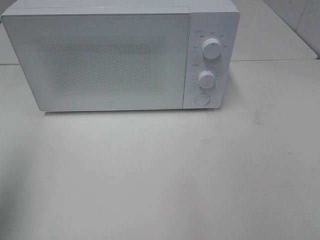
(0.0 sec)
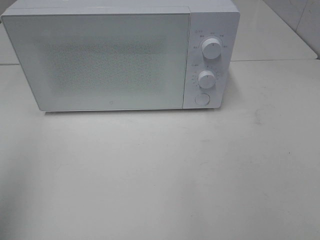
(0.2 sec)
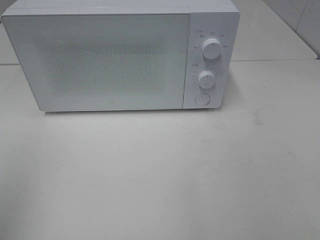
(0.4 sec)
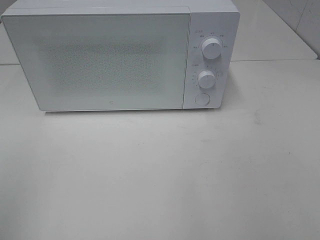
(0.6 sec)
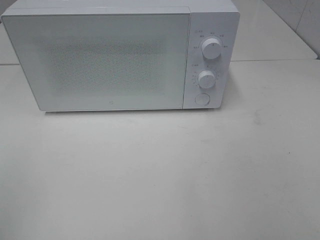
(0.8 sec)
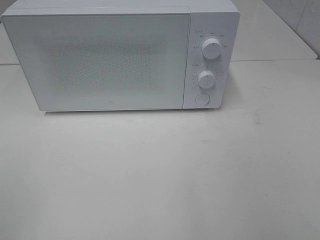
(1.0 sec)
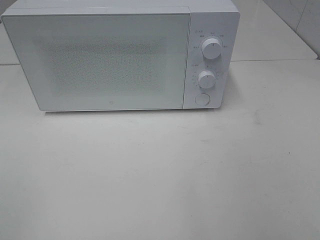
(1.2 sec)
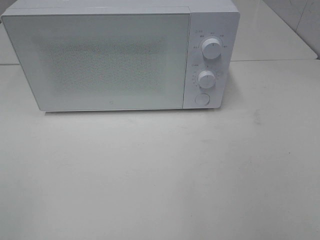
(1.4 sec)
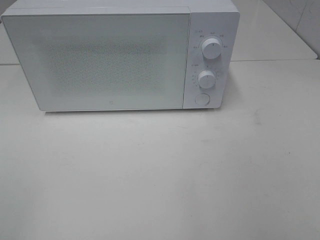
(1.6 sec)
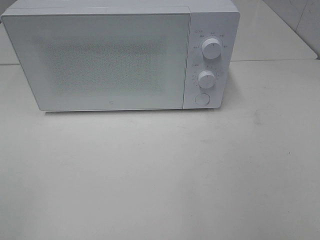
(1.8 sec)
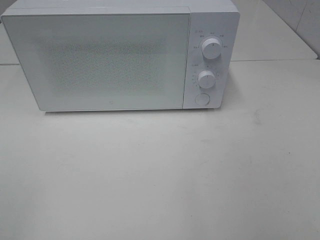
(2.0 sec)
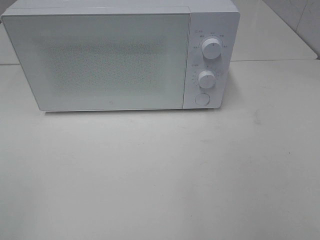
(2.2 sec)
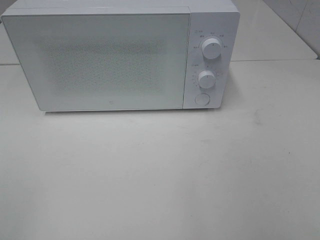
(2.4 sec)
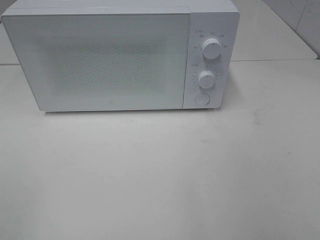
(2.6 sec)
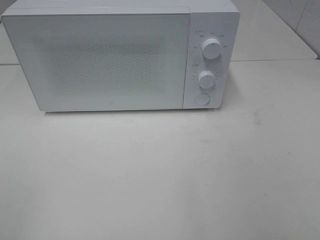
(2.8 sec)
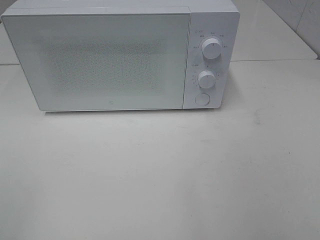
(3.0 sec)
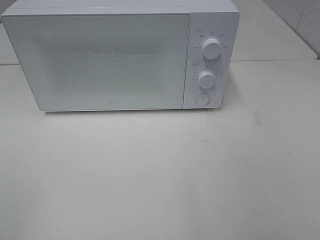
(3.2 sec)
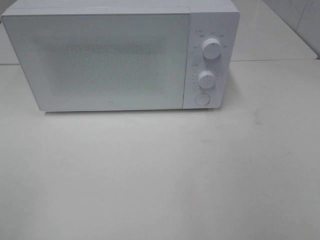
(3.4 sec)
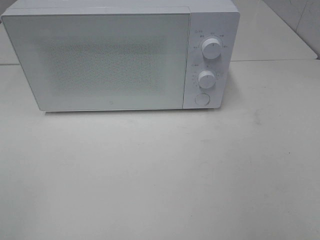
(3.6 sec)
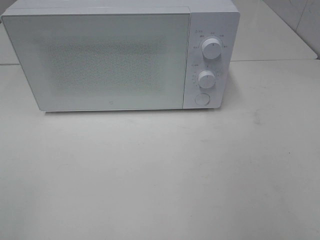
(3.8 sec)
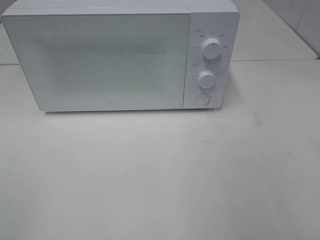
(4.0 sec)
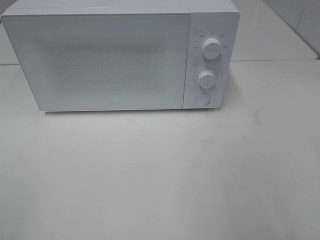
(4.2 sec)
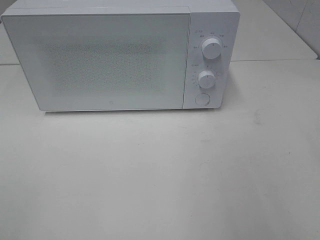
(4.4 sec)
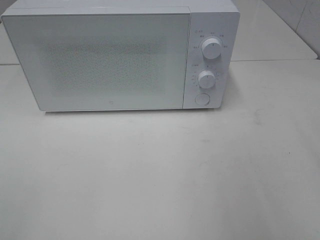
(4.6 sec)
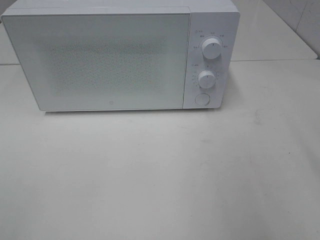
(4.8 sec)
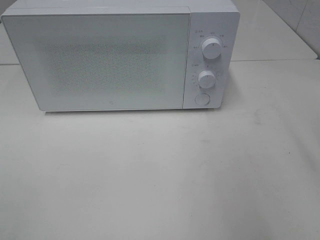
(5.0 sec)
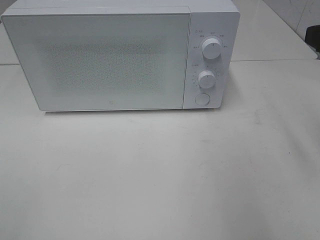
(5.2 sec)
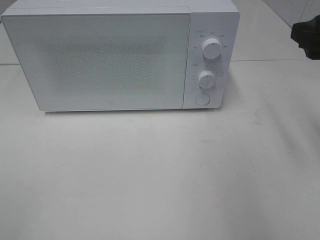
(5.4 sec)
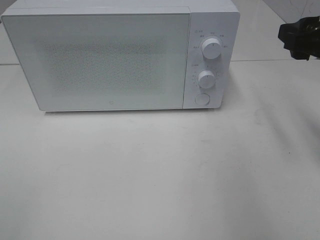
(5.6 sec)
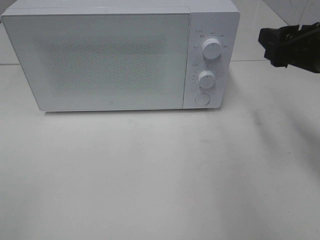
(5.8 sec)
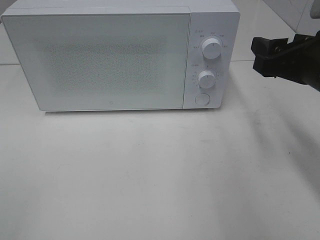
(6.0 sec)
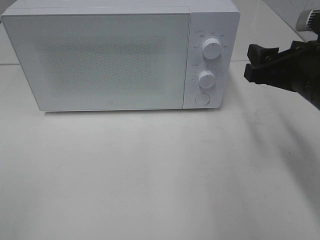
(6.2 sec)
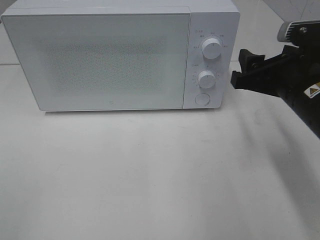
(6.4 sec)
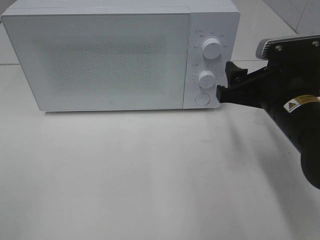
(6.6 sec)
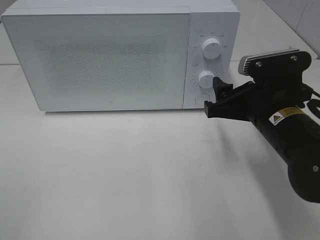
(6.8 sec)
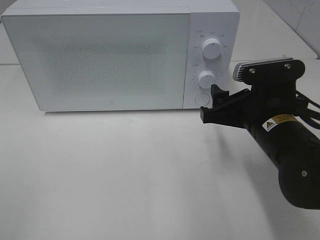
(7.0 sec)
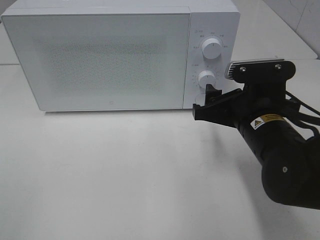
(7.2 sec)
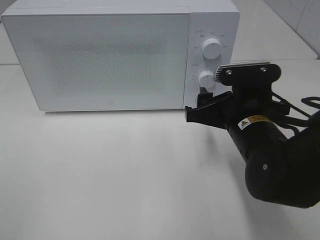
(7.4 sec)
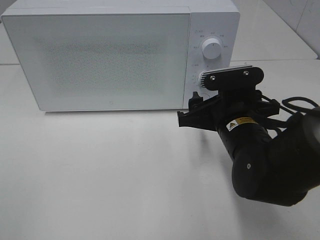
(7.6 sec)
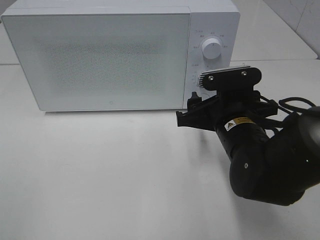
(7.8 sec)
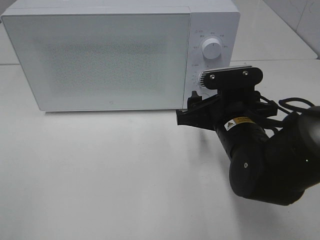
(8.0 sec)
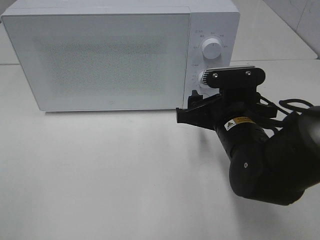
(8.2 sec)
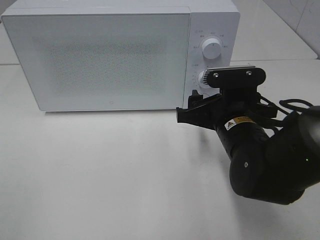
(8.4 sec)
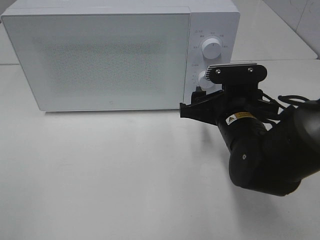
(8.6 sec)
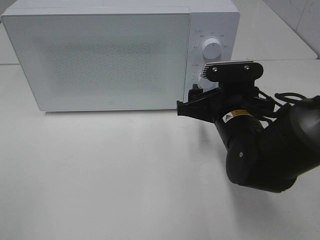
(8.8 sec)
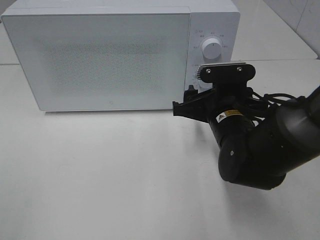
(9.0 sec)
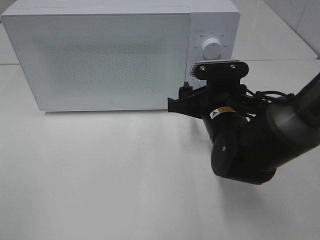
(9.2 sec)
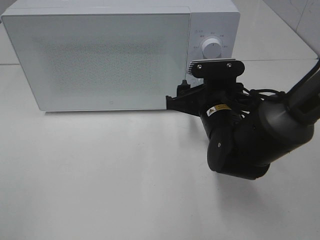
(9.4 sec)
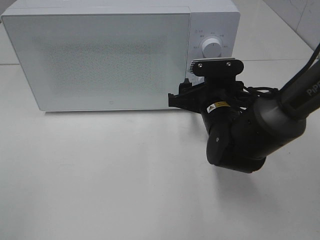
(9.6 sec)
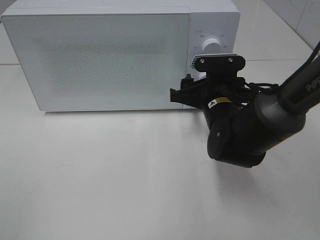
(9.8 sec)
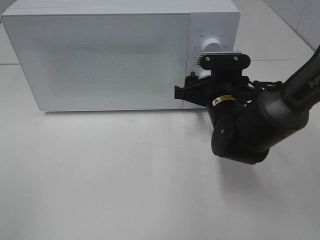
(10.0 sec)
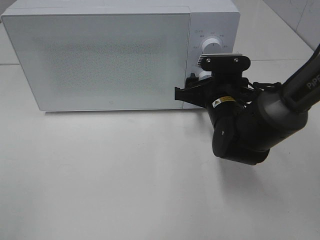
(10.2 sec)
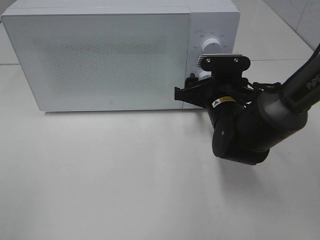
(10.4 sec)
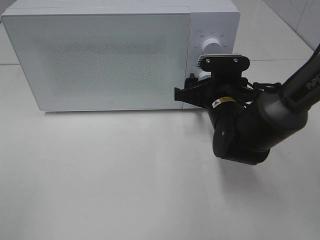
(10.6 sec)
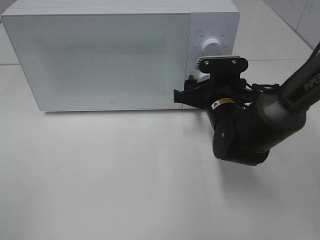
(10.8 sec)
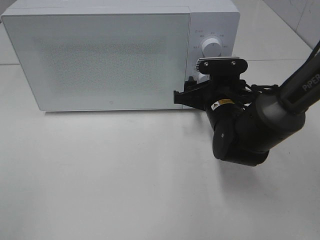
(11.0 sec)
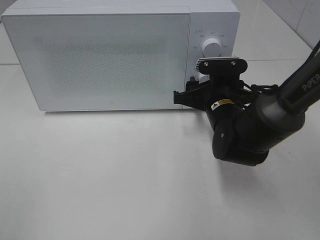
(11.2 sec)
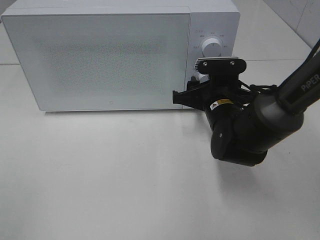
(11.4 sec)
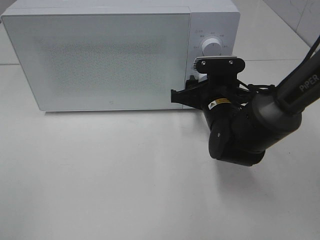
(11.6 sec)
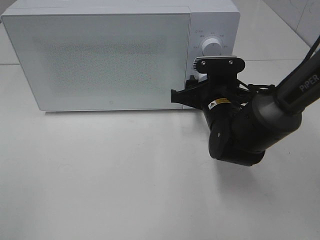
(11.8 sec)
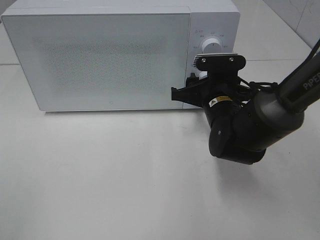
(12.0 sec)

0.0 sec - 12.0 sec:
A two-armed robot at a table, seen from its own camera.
Task of the whole recording: Heat the burger.
0.0 sec - 1.6 sec: The left gripper shifts approximately 15 cm backward and downward.
1.6 sec - 3.0 sec: Both grippers stay put.
4.4 sec - 6.0 sec: The right gripper heads forward and downward, covering approximately 15 cm.
6.0 sec - 7.6 sec: The right gripper travels to the left and downward by roughly 15 cm.
7.6 sec - 9.0 sec: The grippers move only a little.
9.0 sec - 10.4 sec: The grippers move only a little.
10.4 sec - 12.0 sec: Both grippers stay about where they are.

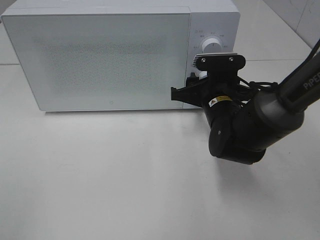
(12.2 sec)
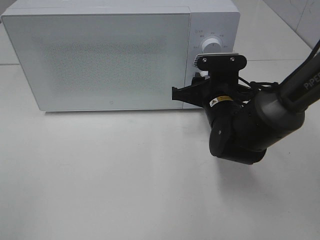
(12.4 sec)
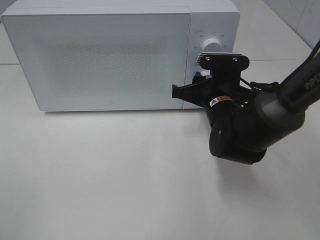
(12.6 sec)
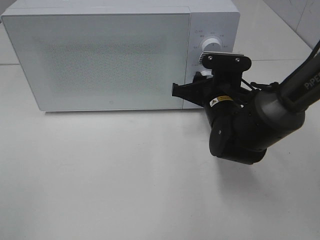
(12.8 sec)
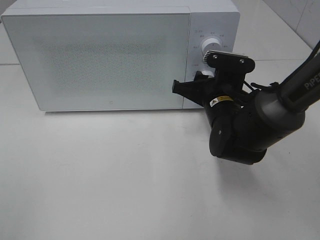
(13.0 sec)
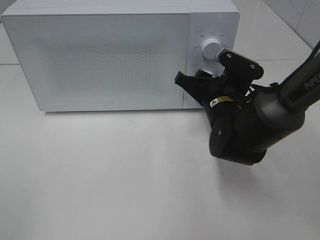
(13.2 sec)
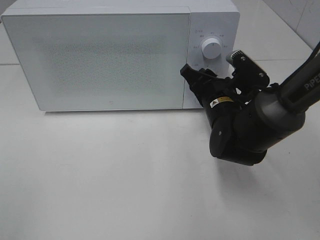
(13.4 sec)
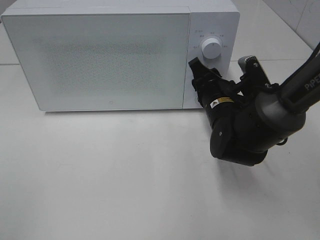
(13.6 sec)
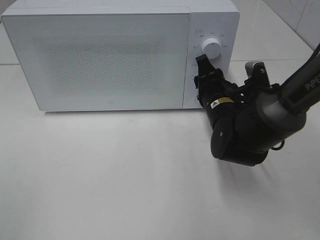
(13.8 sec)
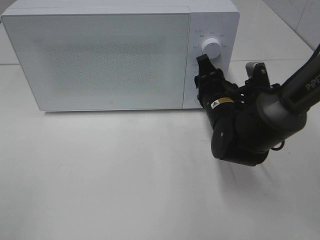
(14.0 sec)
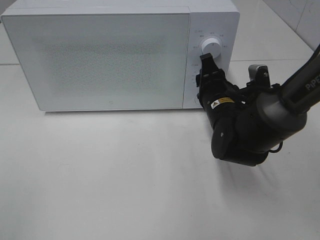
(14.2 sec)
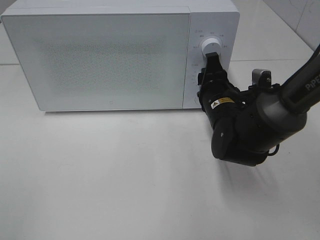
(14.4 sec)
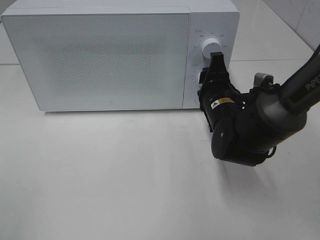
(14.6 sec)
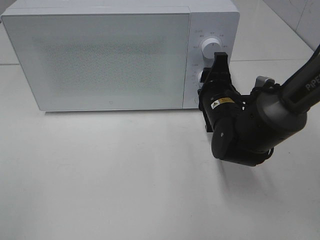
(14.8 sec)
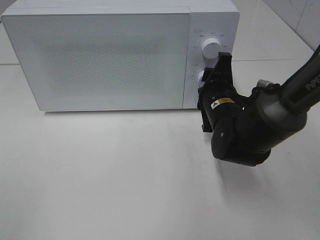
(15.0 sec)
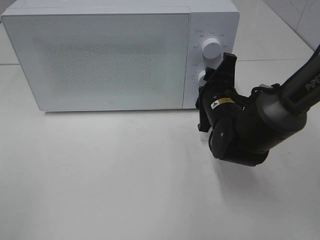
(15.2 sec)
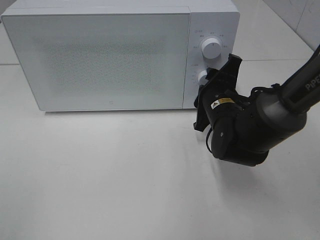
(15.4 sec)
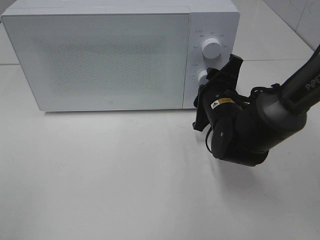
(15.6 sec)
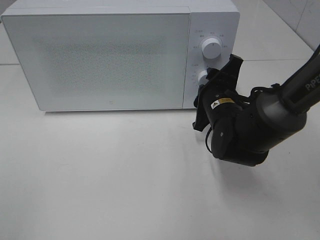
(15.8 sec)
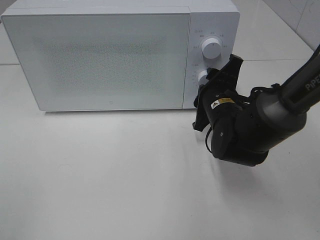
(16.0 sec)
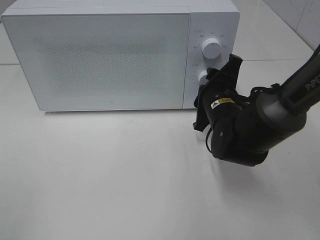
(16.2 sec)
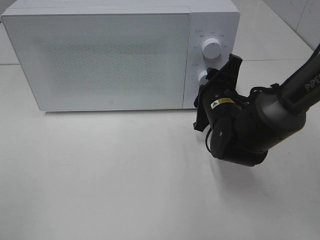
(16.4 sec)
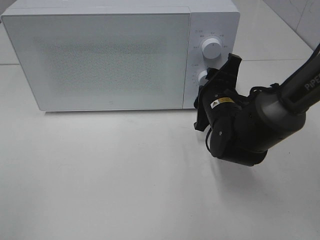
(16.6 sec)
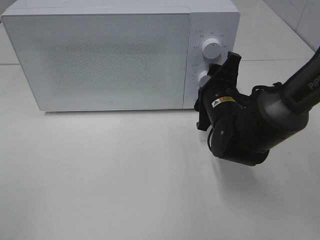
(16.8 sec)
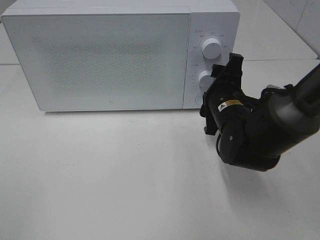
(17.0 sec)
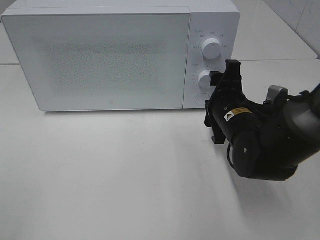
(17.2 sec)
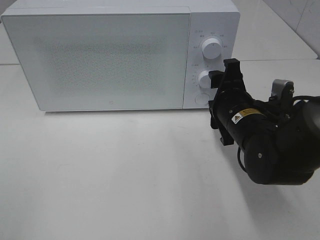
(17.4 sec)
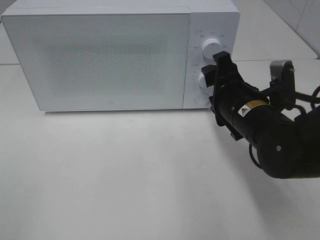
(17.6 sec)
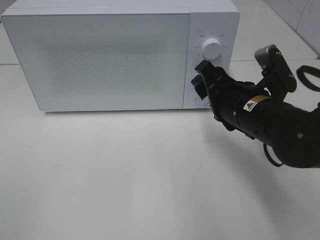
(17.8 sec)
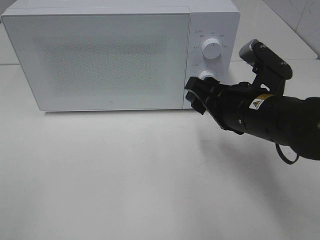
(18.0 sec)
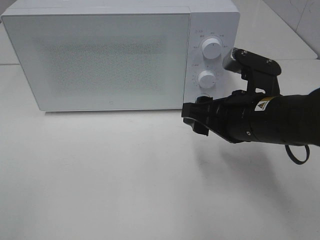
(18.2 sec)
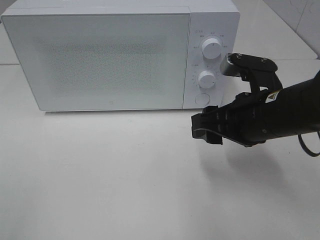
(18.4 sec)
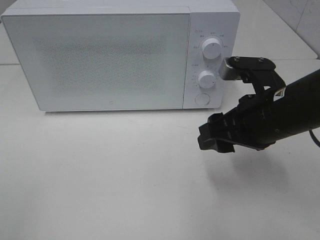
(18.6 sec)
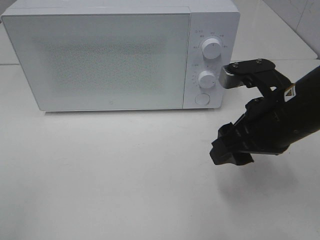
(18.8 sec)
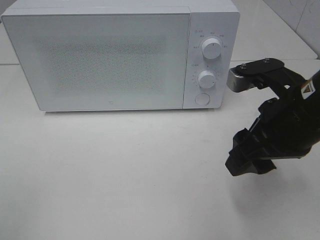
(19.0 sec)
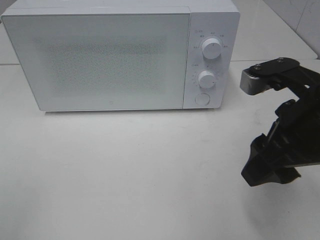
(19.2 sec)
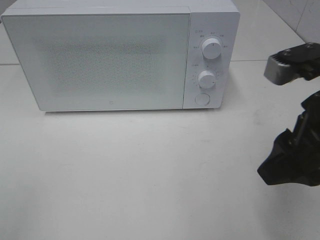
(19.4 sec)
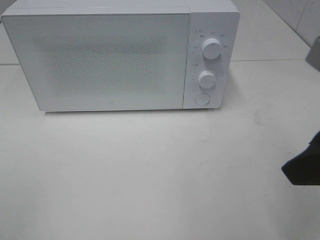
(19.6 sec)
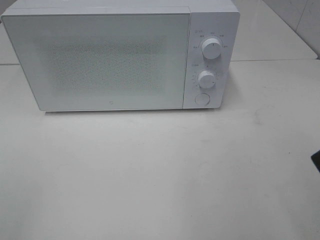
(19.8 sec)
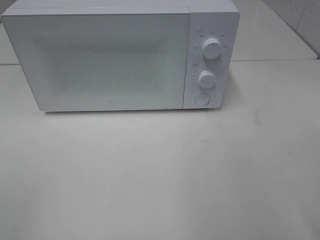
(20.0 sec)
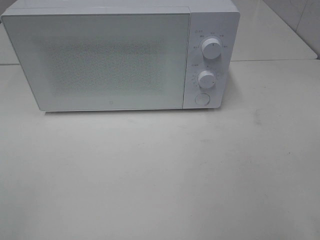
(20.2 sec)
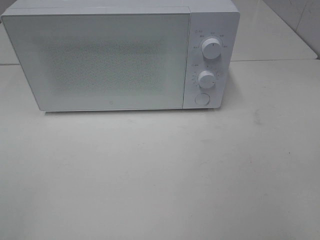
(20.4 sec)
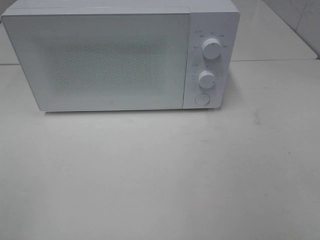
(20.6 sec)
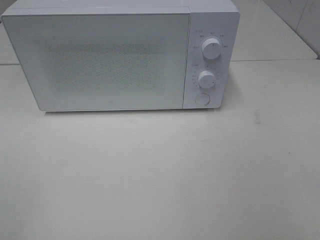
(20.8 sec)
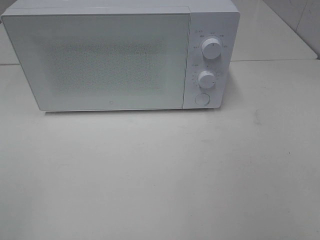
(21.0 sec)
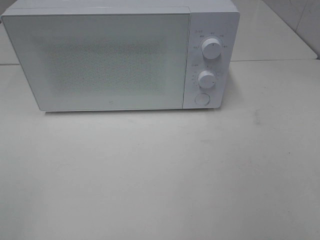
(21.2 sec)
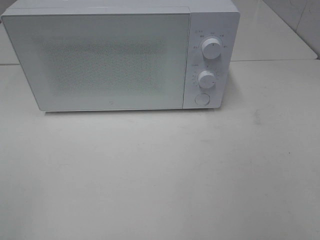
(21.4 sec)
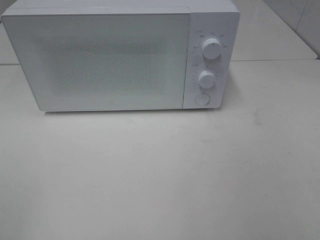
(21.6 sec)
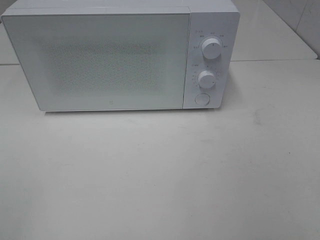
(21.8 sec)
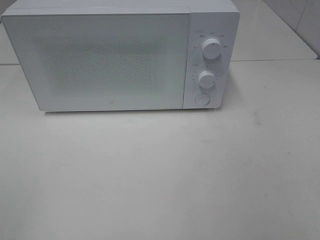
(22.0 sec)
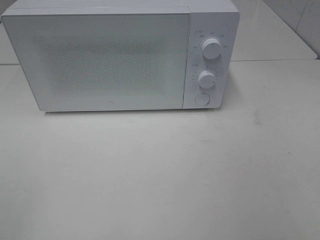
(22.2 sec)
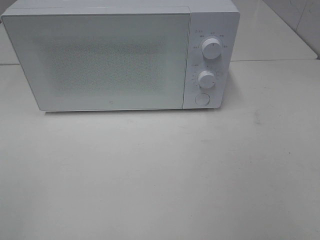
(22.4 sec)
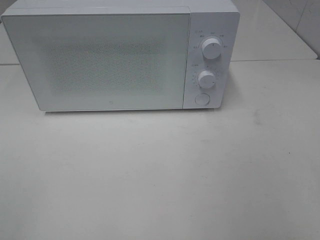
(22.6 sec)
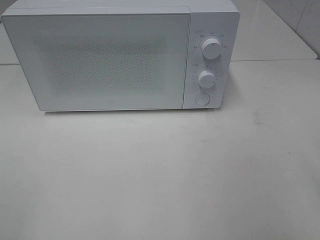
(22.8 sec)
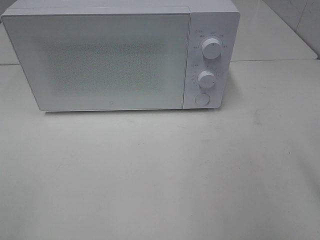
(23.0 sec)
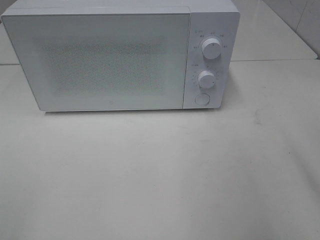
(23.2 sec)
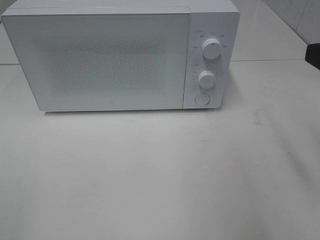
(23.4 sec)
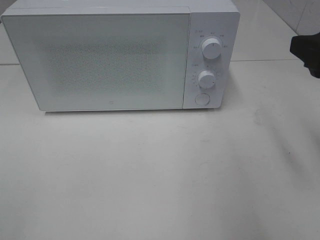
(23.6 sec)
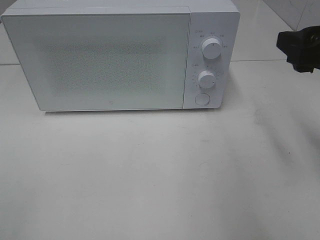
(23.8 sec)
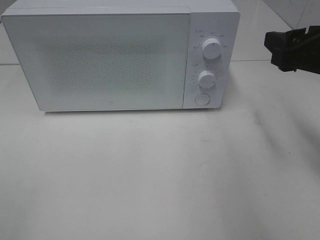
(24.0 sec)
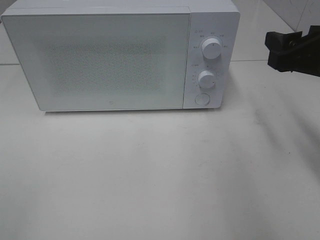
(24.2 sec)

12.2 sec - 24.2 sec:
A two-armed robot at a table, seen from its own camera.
Task of the whole recording: Heat the burger.
Step, 12.2 sec - 17.0 sec: Right hand: twist timer button.
15.2 sec - 16.6 sec: The grippers make only small movements.
16.6 sec - 18.2 sec: The right gripper travels backward and upward by roughly 10 cm.
18.2 sec - 19.8 sec: The right gripper goes roughly 20 cm upward, backward and to the right.
22.6 sec - 24.2 sec: The right gripper shifts about 20 cm forward.
